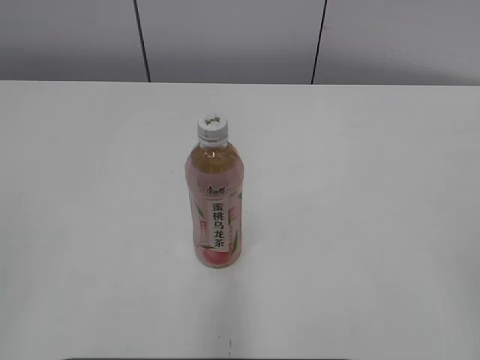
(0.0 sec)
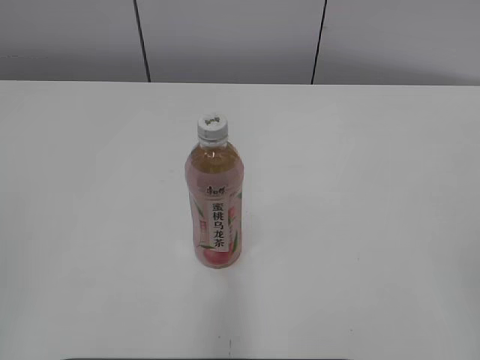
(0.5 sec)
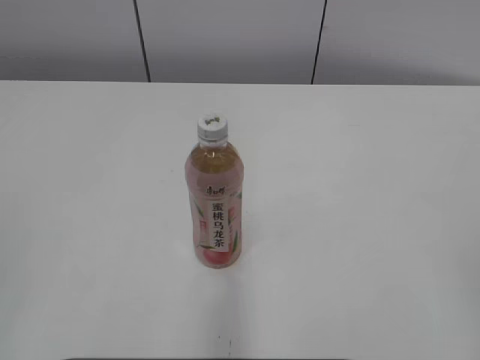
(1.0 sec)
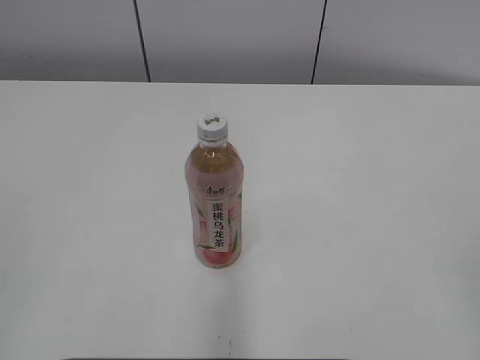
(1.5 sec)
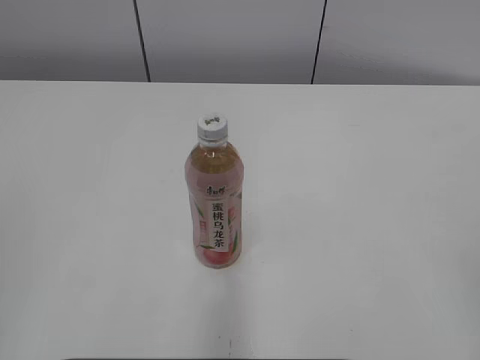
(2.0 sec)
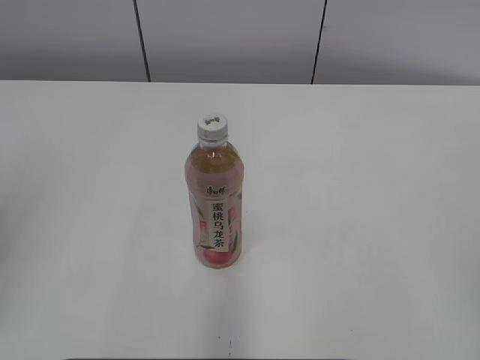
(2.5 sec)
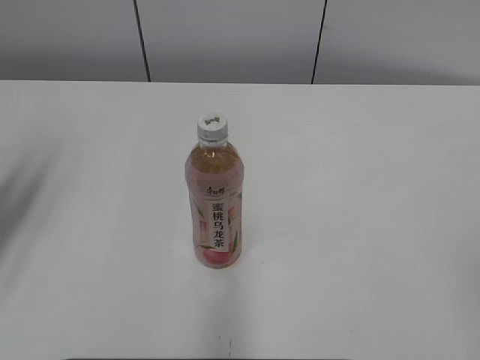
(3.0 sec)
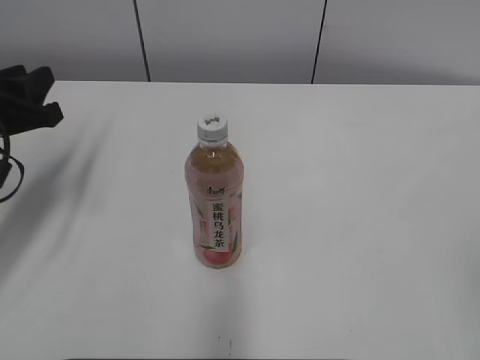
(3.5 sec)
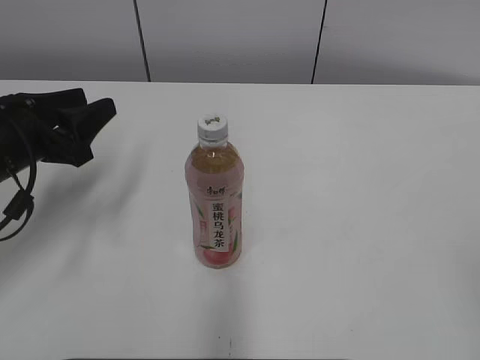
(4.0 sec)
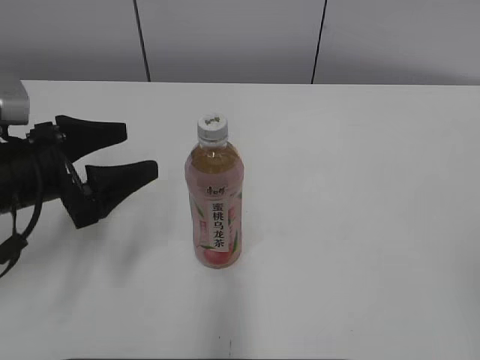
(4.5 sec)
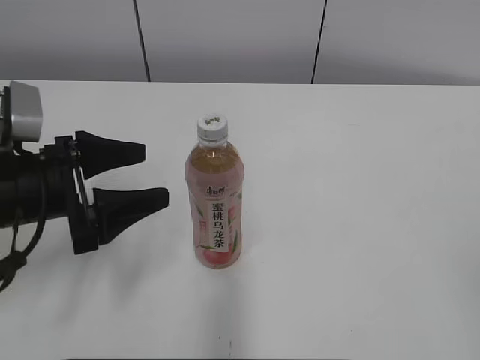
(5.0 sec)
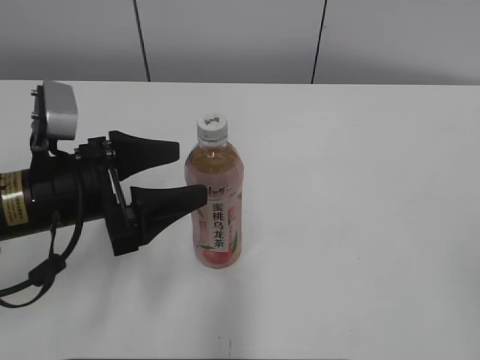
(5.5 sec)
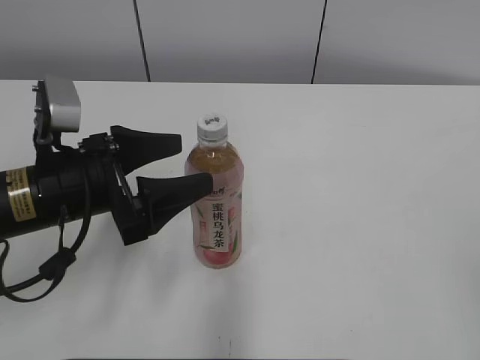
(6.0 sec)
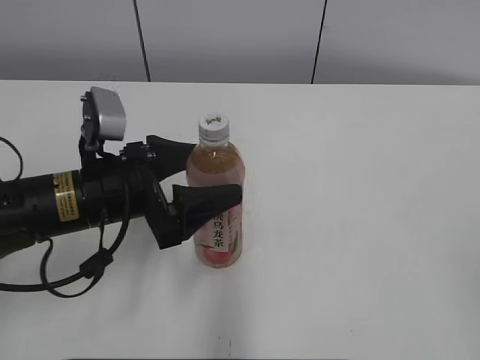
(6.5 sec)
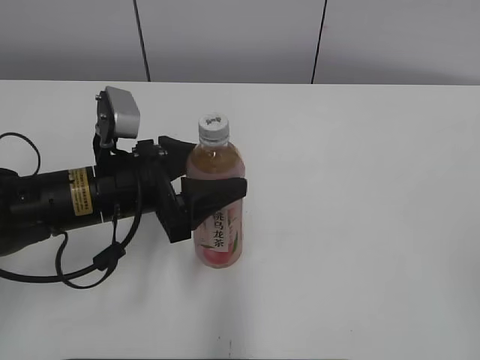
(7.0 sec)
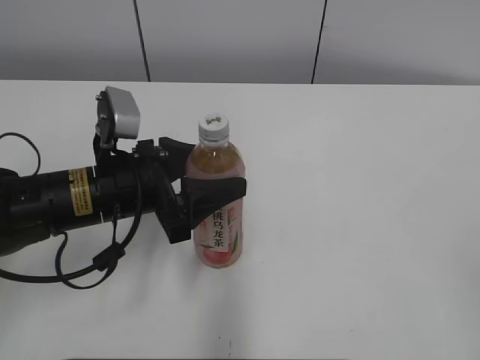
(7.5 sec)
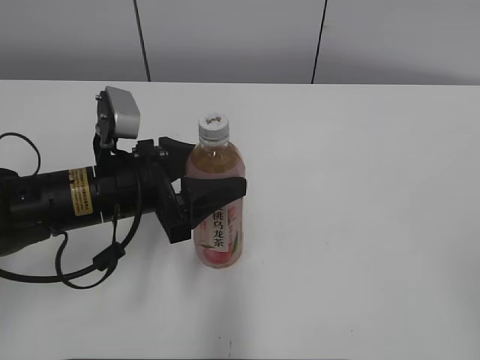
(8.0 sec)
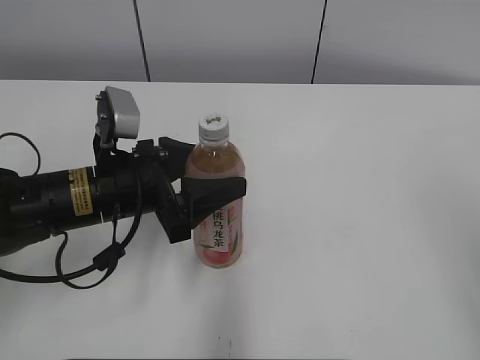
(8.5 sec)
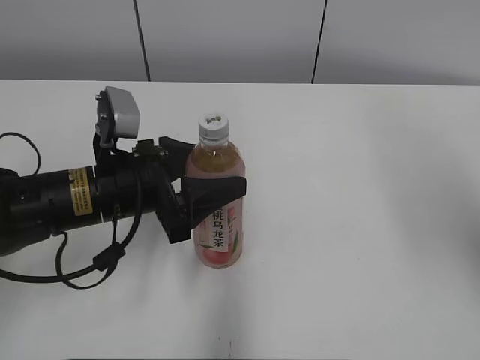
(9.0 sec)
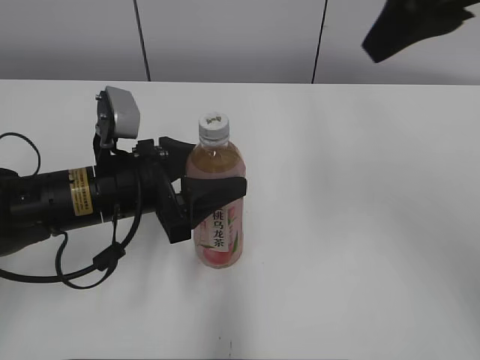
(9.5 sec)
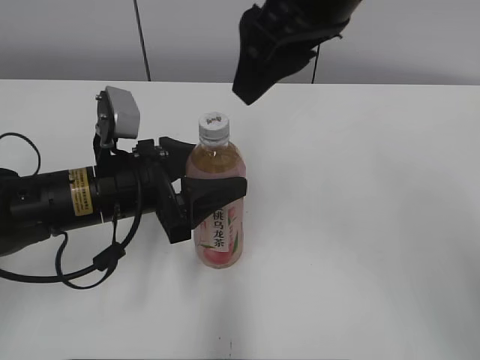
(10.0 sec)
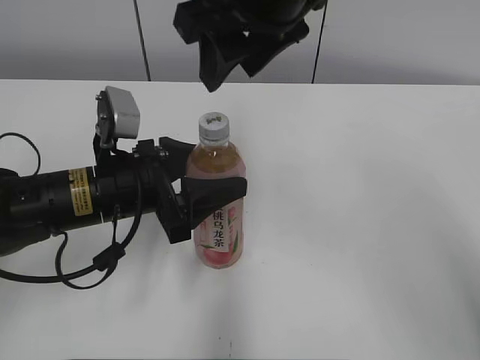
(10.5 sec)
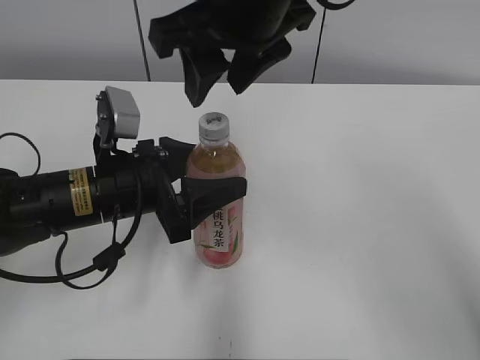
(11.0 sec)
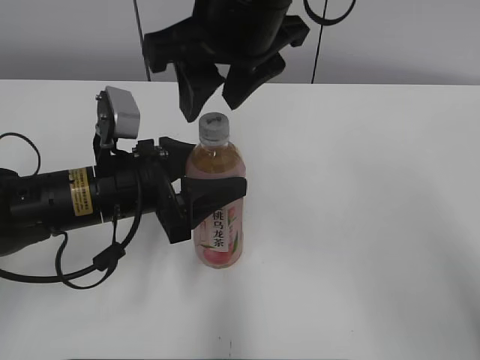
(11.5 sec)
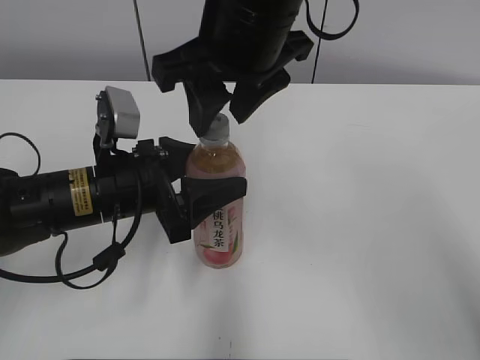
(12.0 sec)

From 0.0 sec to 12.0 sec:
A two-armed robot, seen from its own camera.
From 2.0 sec to 4.0 sec: The left gripper travels forward and downward by roughly 30 cm.
From 4.0 sec to 6.0 sec: The left gripper moves to the right, about 10 cm, and opens its fingers.
From 6.0 sec to 8.0 sec: The grippers make only small movements.
From 8.0 sec to 10.0 sec: The right gripper goes roughly 35 cm forward and to the left, and closes up.
From 10.0 sec to 12.0 sec: The right gripper moves to the left, about 5 cm.

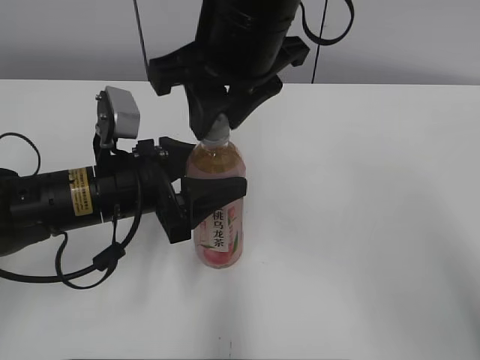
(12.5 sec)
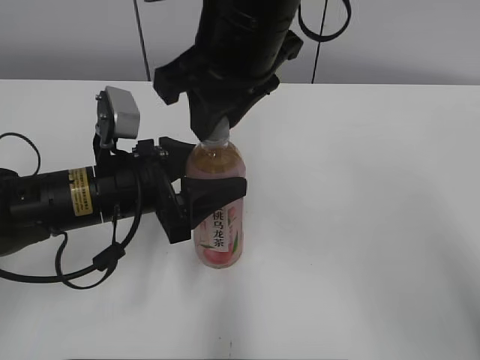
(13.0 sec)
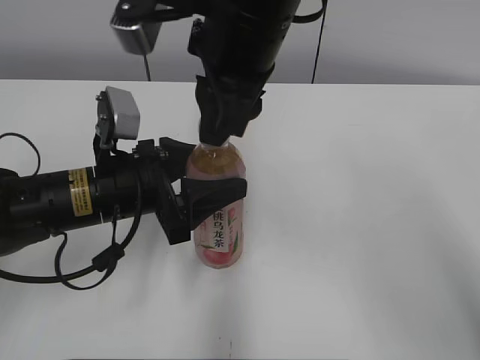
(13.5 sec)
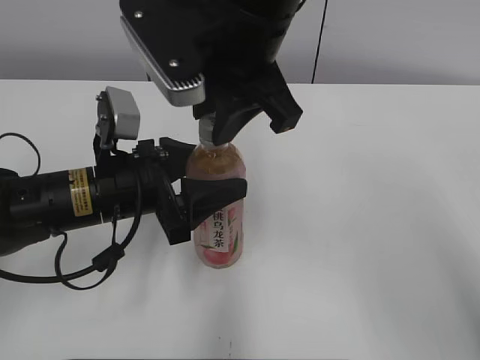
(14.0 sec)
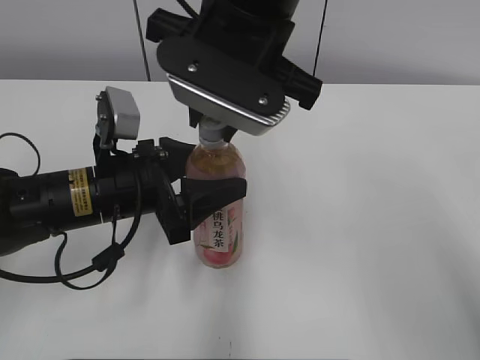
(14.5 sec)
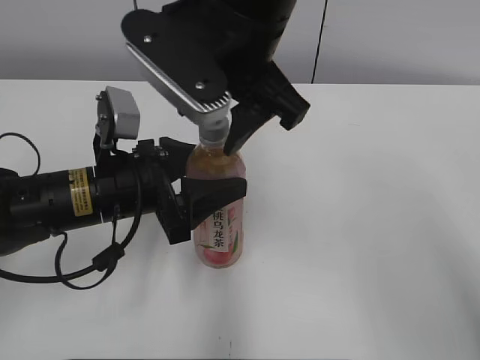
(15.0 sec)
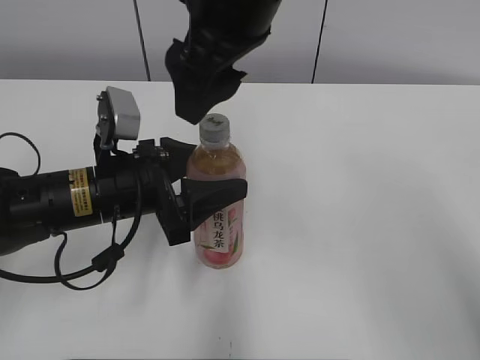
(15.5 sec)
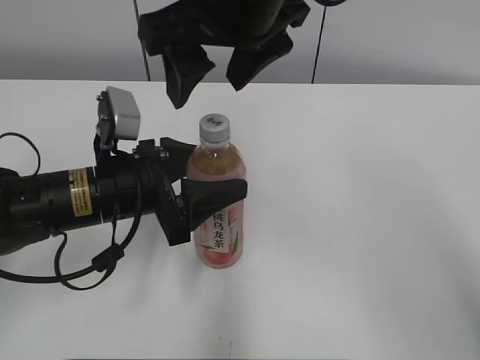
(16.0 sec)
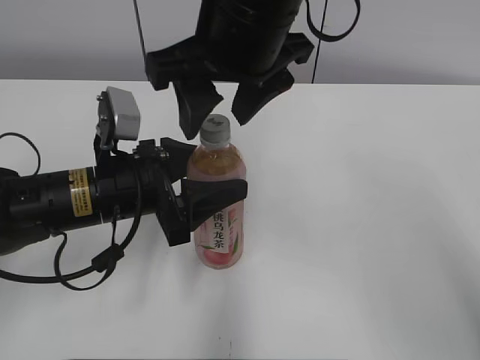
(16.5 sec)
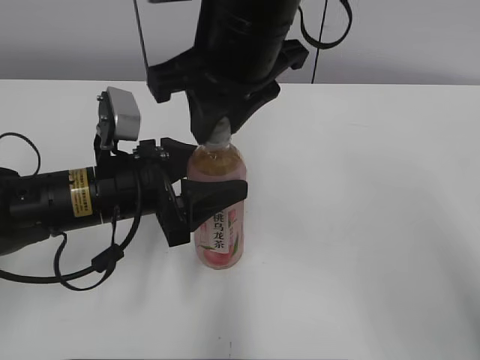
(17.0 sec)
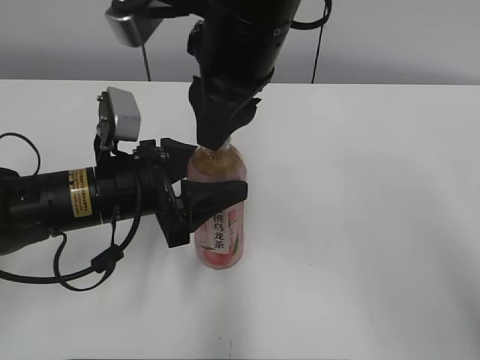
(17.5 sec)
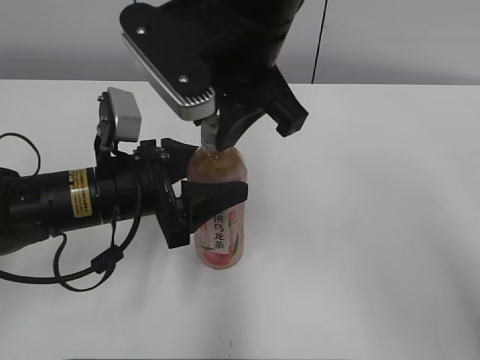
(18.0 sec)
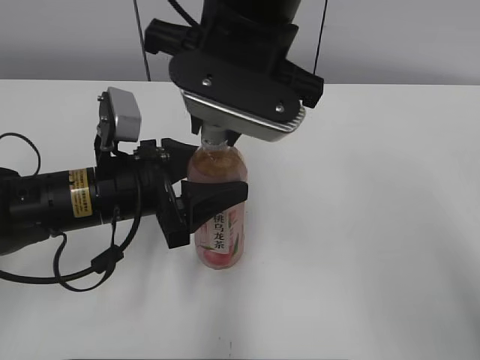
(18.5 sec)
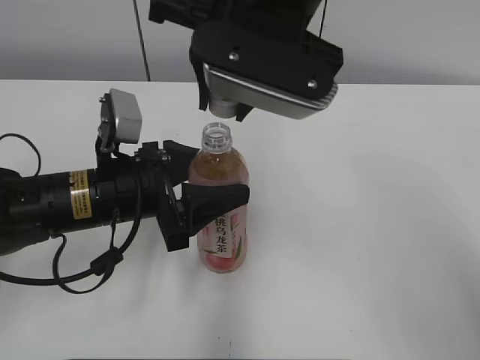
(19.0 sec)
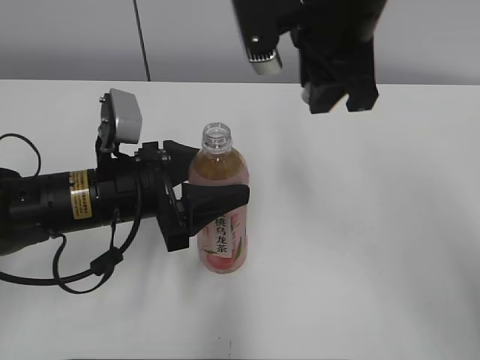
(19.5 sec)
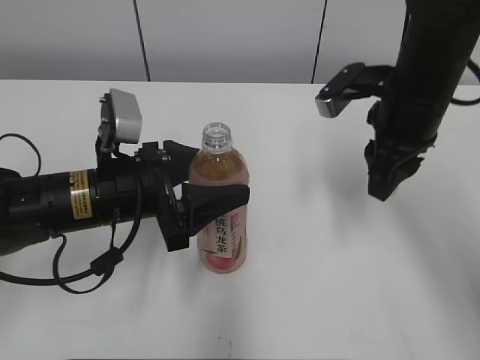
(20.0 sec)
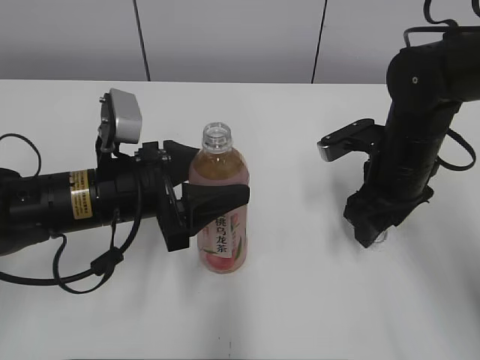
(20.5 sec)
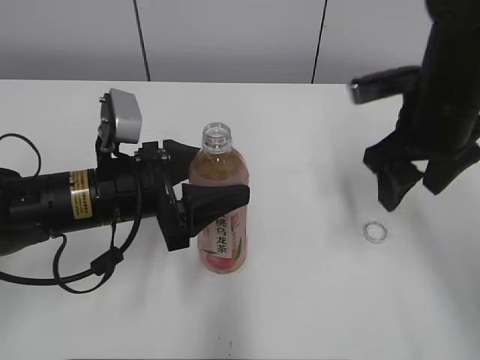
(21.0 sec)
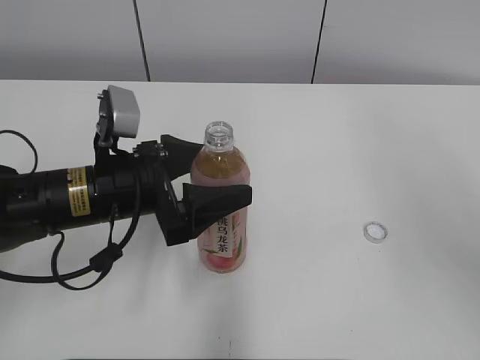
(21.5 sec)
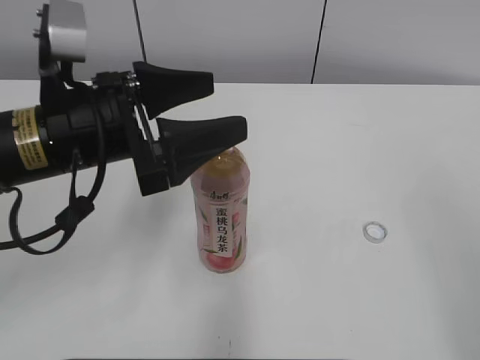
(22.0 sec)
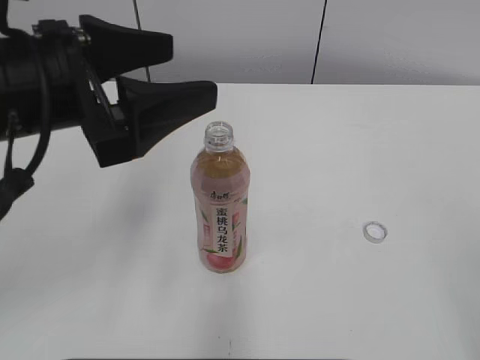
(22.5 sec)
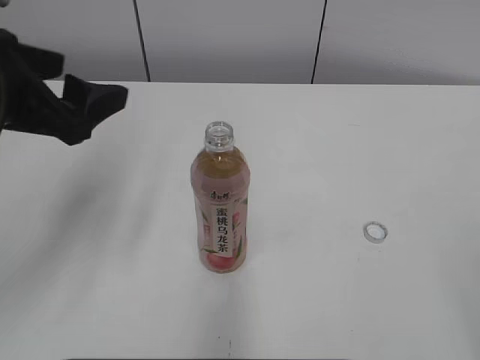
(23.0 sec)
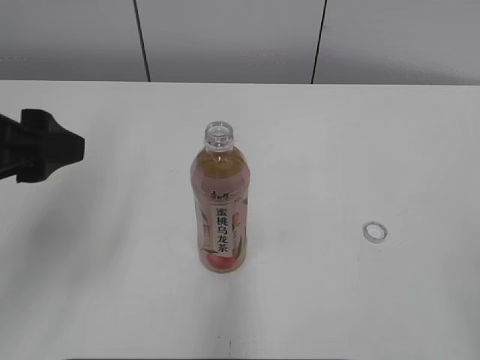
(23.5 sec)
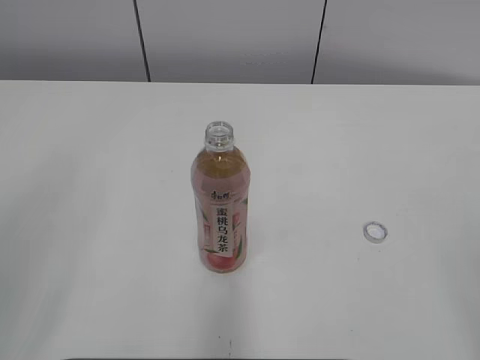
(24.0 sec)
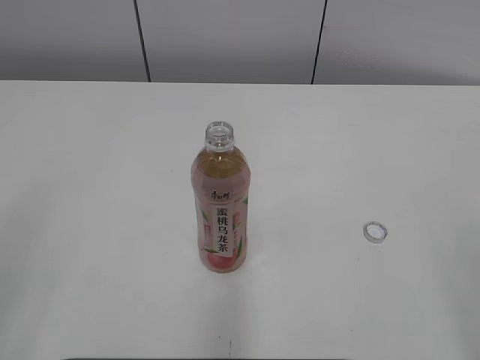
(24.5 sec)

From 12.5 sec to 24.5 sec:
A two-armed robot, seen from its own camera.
Step, from 19.0 sec to 20.5 sec: Place the bottle cap on the right.
From 14.5 sec to 16.5 sec: The right gripper opens.
From 16.5 sec to 18.5 sec: The right gripper closes.
From 18.5 sec to 20.5 sec: The right gripper heads to the right and downward, covering some 25 cm.
From 20.5 sec to 22.5 sec: The left gripper is displaced upward by approximately 15 cm, and opens up. The right gripper shifts roughly 35 cm backward and upward, and opens.
From 22.5 sec to 24.5 sec: The left gripper moves backward and to the left, roughly 25 cm.
